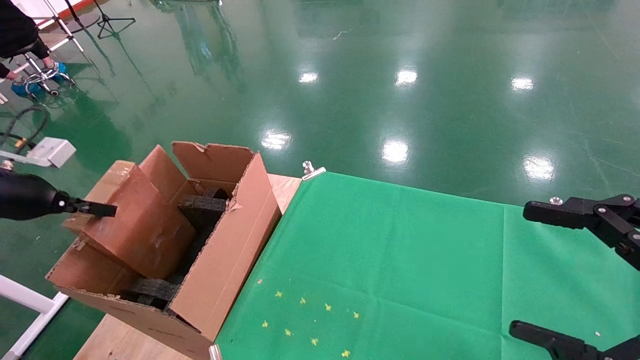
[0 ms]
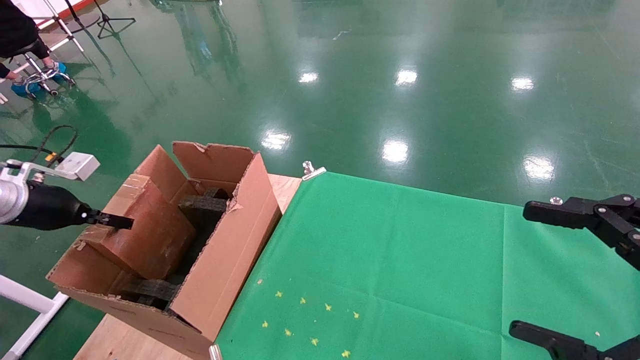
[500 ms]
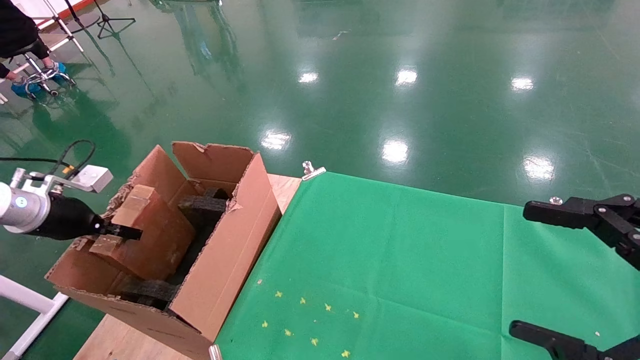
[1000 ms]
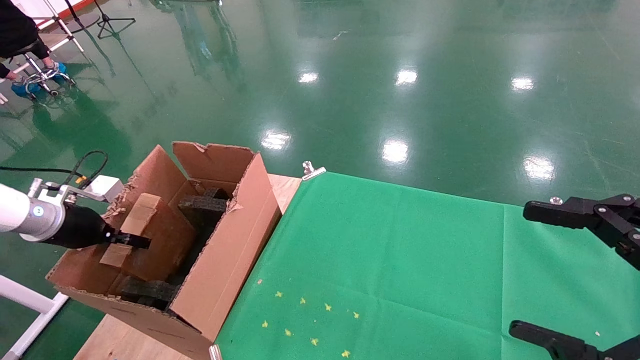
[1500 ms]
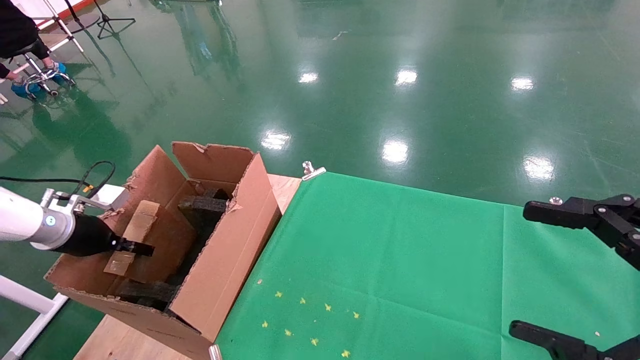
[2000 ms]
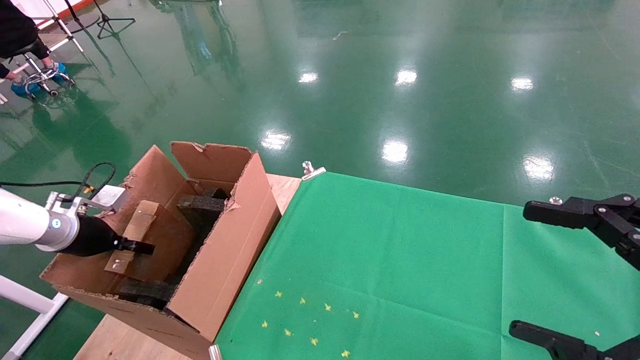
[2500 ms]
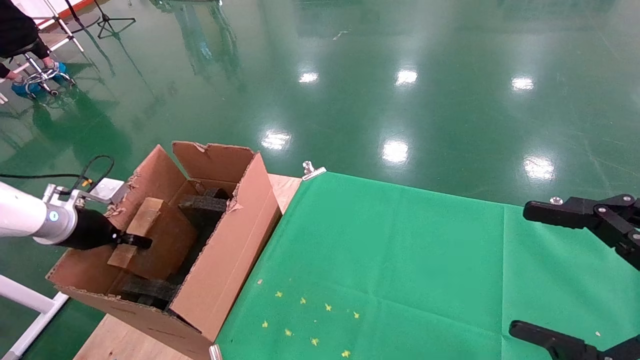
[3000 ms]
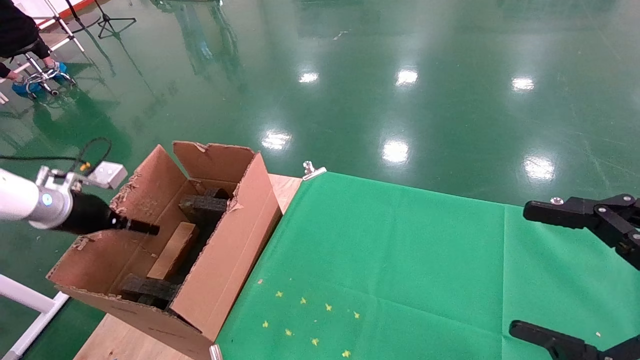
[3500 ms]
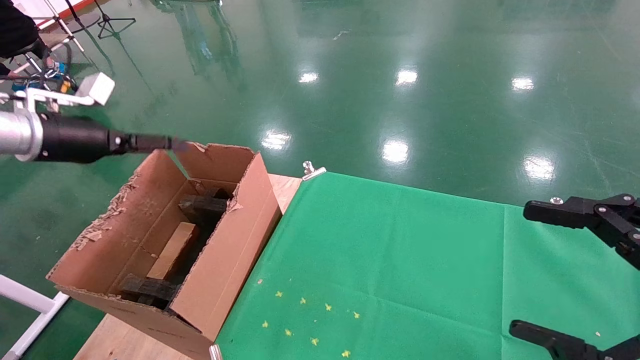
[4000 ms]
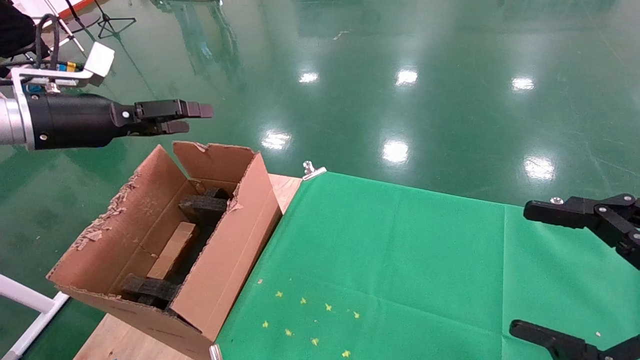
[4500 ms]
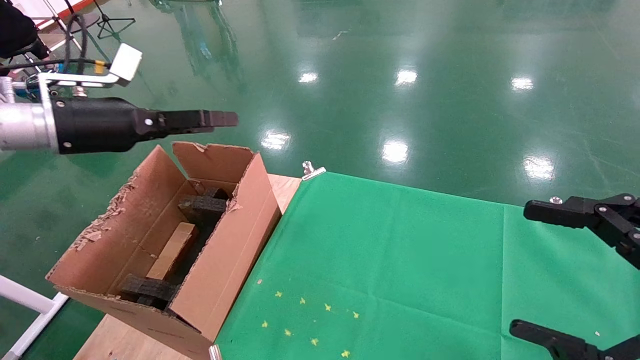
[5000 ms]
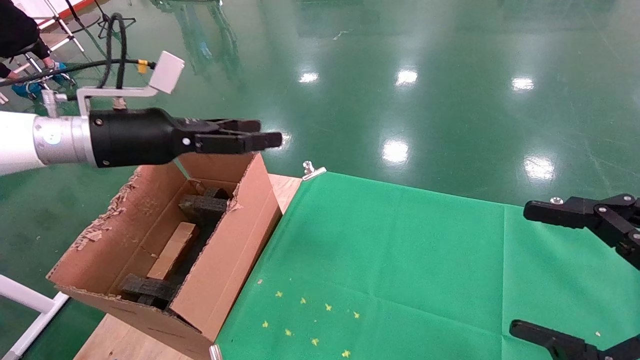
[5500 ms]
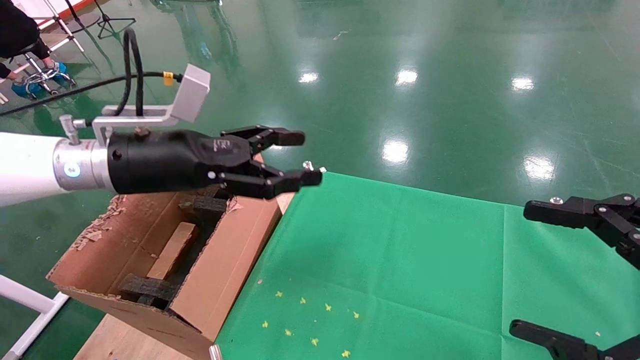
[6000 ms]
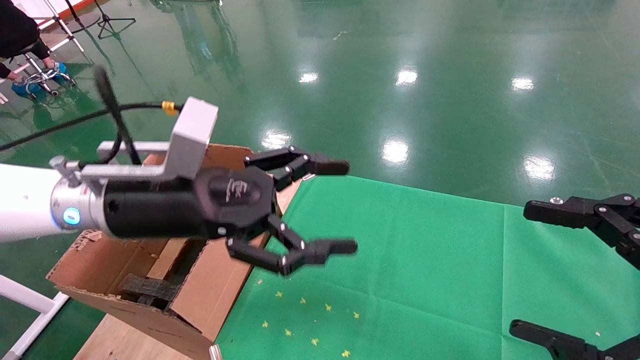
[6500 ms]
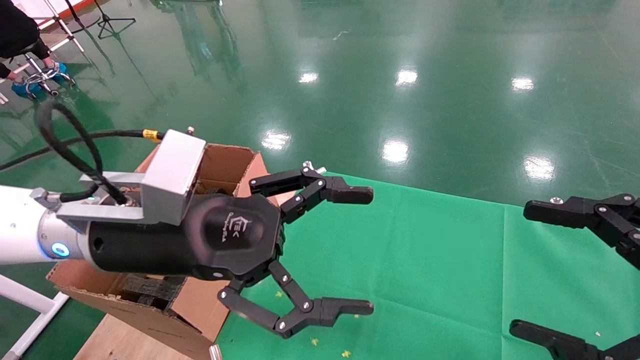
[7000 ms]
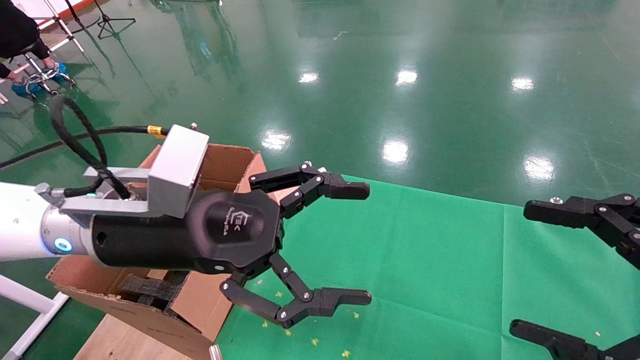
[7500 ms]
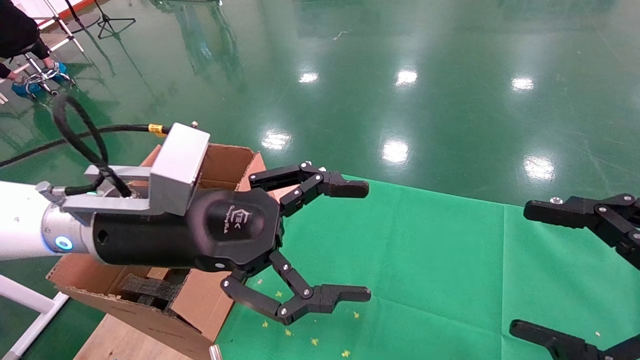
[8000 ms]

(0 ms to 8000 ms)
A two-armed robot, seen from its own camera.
Task of the whole recording: using a robotic arm to pick up a cardboard box and palace it the carton.
Step, 0 ms - 4000 ms: Place the mouse and the power cord paper box into the container.
0 ms - 2000 ms: The left gripper heads downward and forward, covering about 10 cm.
2000 ms - 4000 ms: The left gripper moves upward, some 15 cm, and opens.
4000 ms - 6000 ms: The left gripper goes some 20 cm to the right.
6000 ms - 8000 ms: The left gripper moves backward and to the right, approximately 10 cm.
